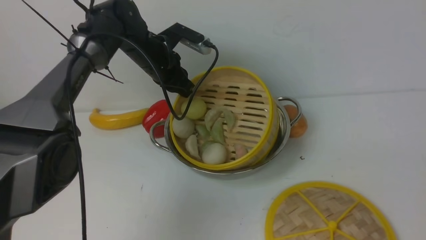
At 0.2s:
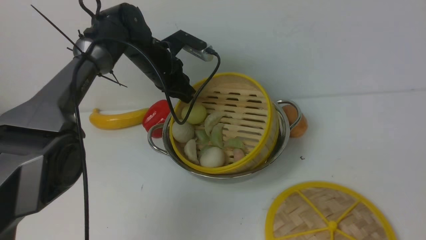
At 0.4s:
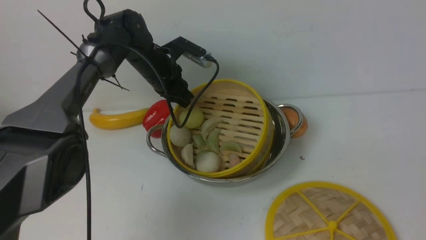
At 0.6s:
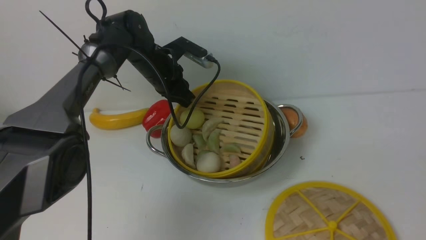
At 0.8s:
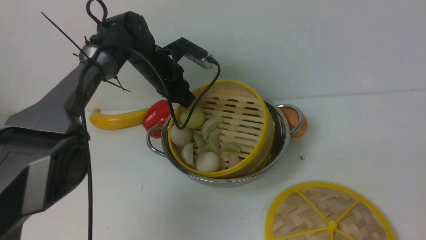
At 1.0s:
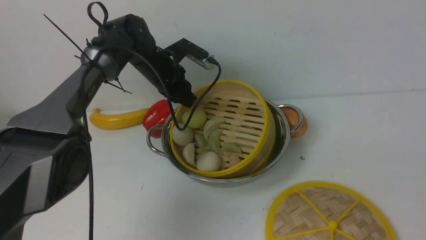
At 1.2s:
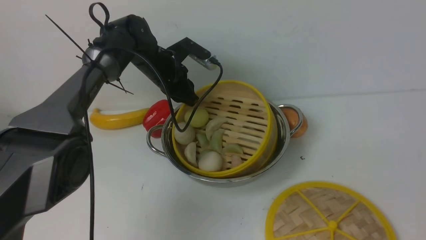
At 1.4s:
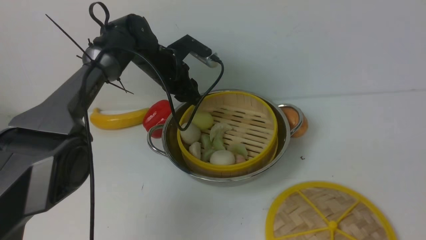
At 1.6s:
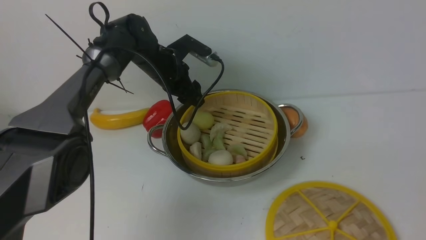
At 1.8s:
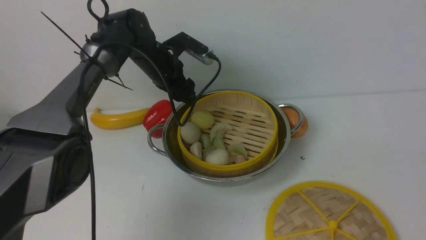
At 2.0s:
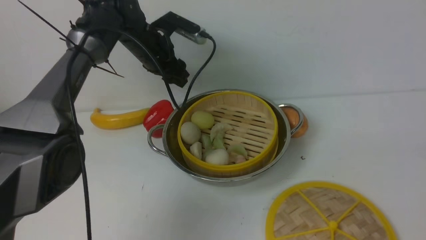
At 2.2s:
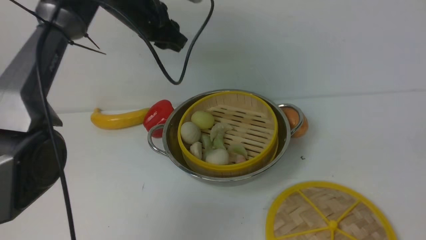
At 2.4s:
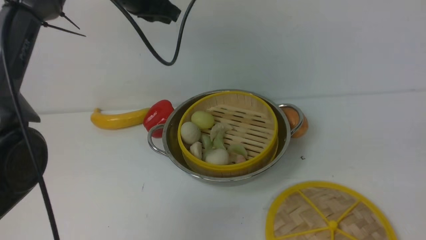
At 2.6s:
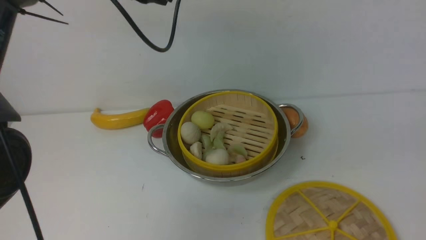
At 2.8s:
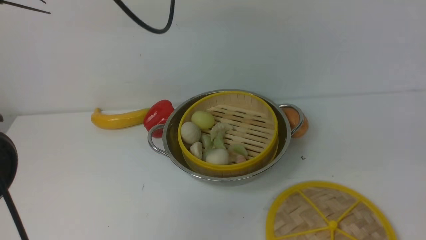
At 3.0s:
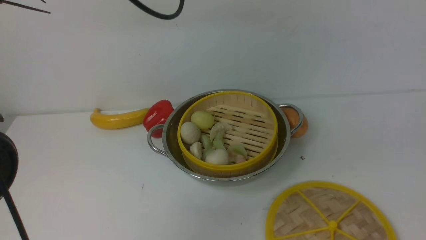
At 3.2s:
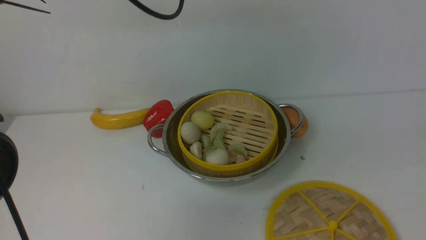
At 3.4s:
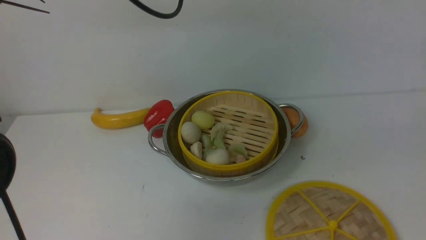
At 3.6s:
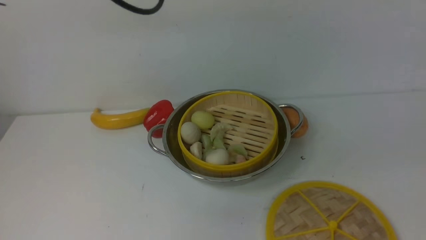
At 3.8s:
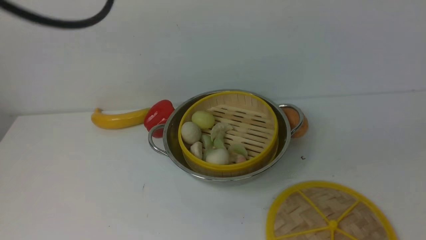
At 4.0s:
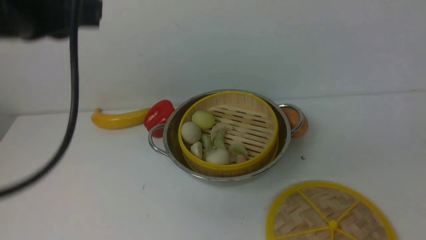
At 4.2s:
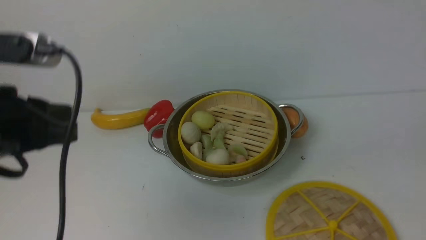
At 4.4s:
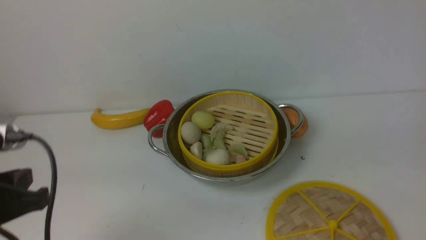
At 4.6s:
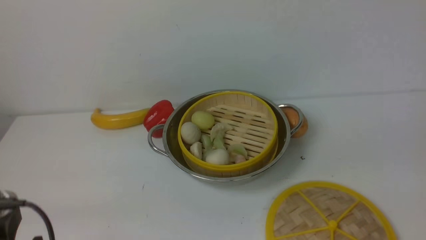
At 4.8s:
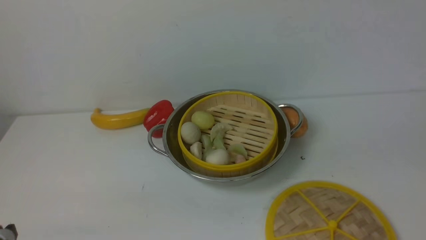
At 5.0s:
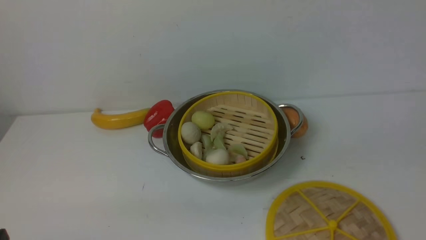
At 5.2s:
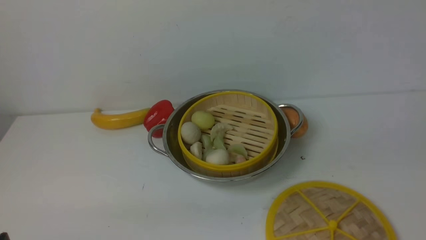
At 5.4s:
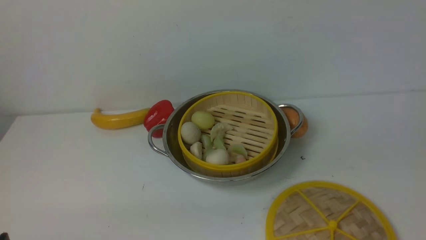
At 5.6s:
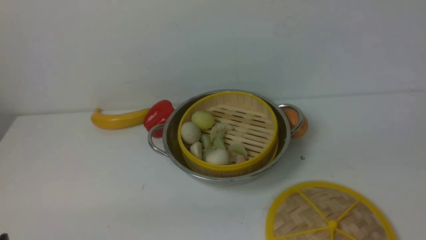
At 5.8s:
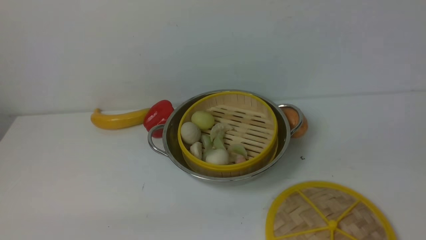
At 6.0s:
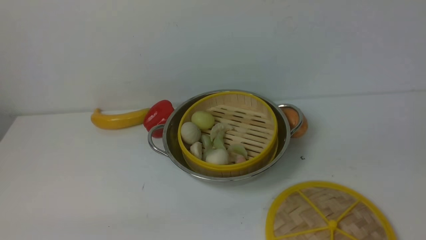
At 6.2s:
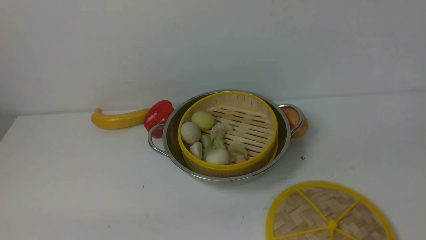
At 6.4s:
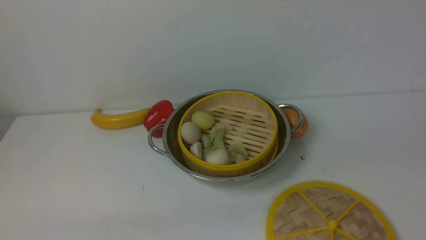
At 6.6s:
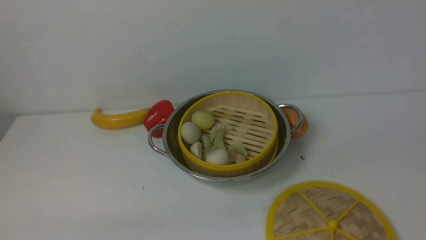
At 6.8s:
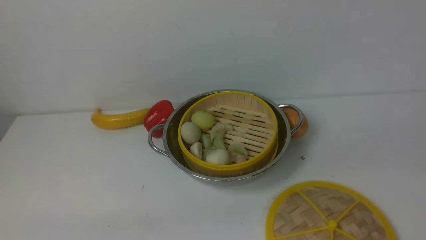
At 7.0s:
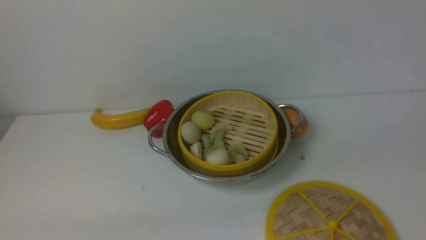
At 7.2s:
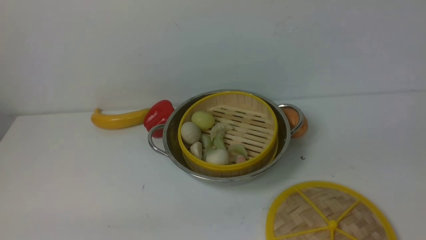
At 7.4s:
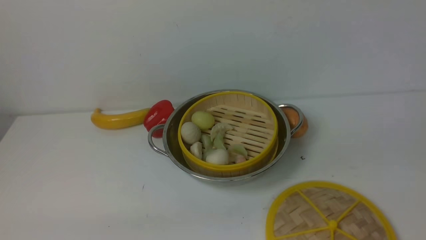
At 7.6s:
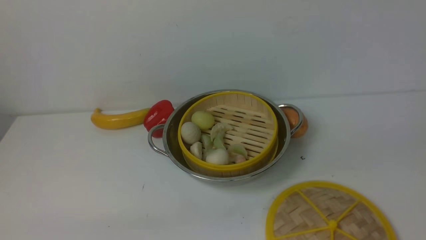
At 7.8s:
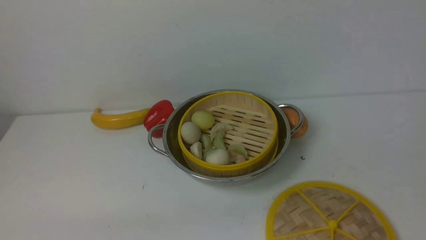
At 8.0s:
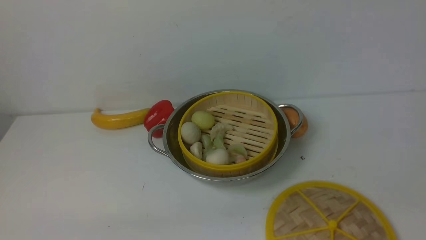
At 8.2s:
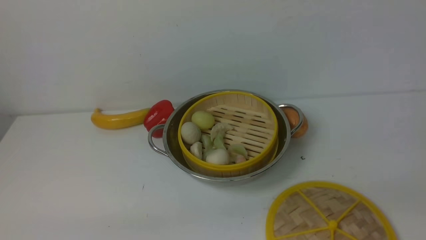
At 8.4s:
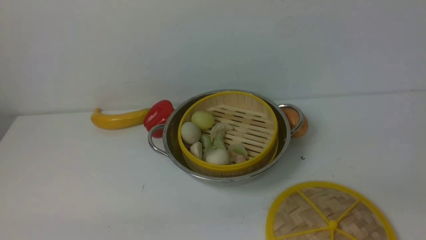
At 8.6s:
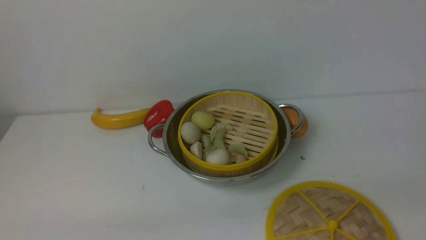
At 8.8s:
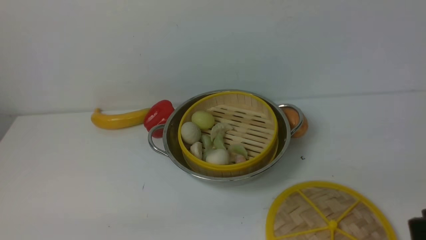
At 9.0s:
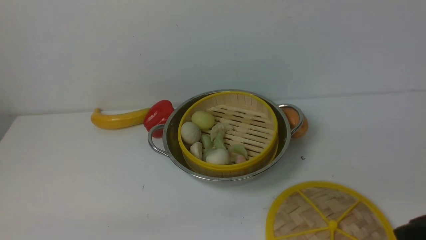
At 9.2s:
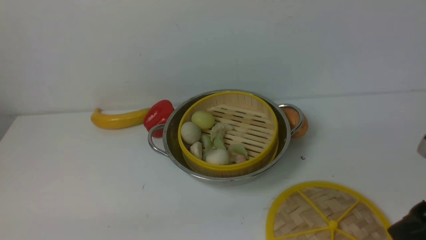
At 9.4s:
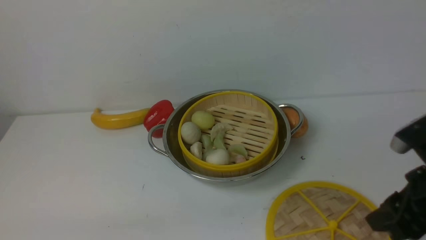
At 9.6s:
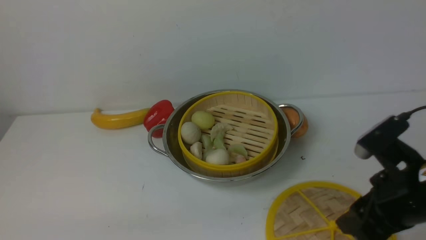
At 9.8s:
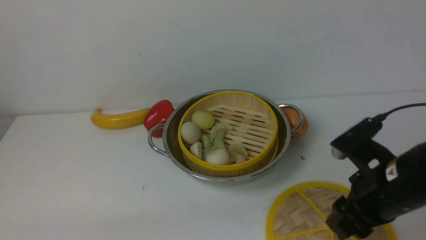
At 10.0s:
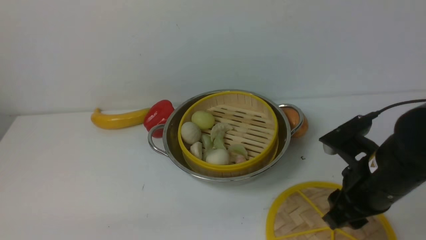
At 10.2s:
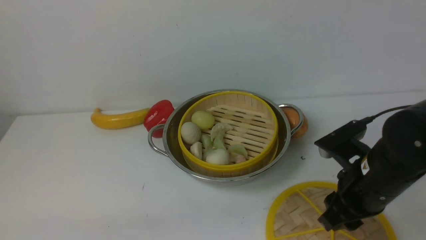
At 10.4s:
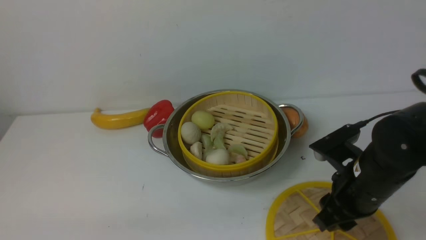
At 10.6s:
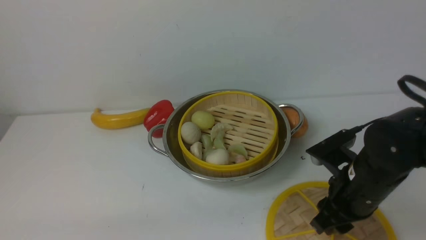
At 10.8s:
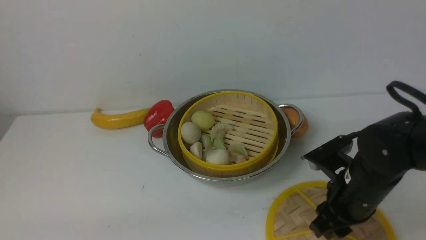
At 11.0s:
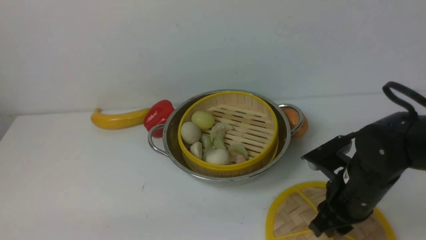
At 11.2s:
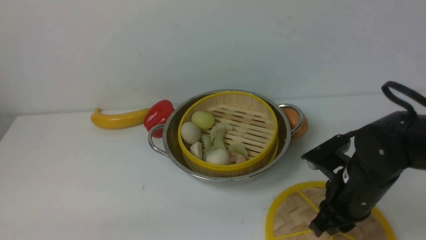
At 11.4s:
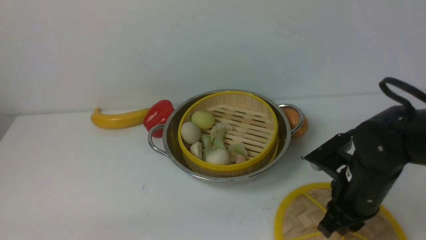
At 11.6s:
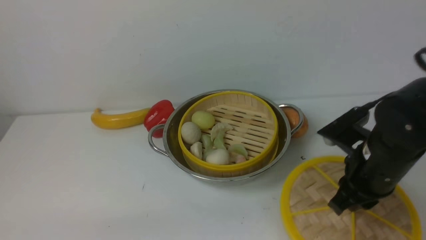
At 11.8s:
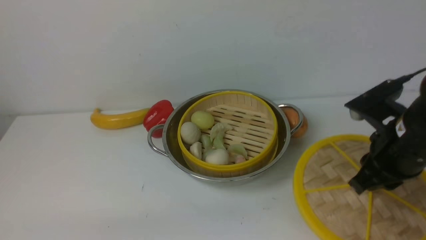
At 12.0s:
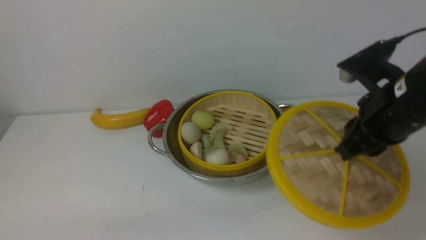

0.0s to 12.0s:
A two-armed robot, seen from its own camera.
Task of the whole recording: place the steamer in the pot on the white table, and put the lid on the steamer.
Step, 2.0s to 11.4s: use the right arm to lift the lid of the steamer.
0.0s to 1.6s: The left gripper opens its fingers.
1.6s to 3.0s: The left gripper moves upward, approximately 25 cm, and closes up.
3.0s to 4.4s: The left gripper moves backward, downward and to the left, some 30 cm.
4.4s to 6.0s: The left gripper moves downward and backward, about 20 cm.
9.0s to 10.4s: The right gripper goes about 20 cm forward, downward and to the left.
10.4s to 12.0s: The right gripper shifts approximately 10 cm upward, and closes up.

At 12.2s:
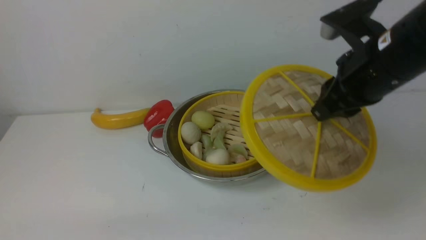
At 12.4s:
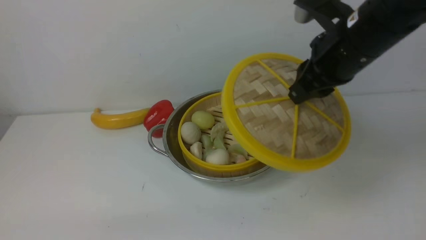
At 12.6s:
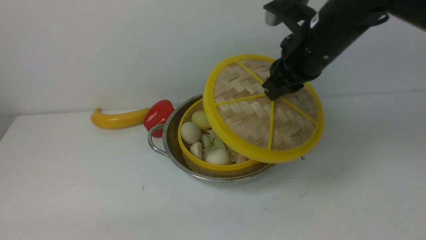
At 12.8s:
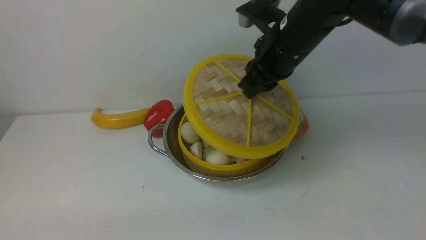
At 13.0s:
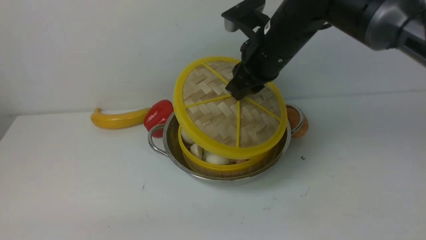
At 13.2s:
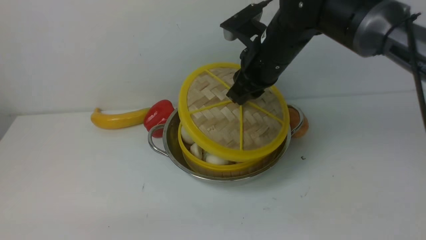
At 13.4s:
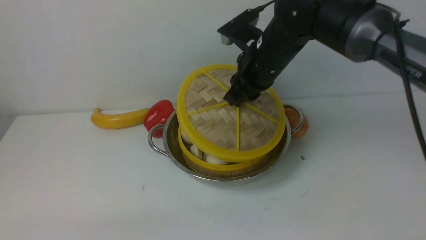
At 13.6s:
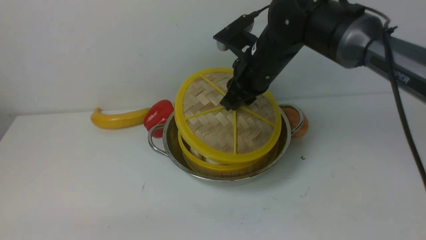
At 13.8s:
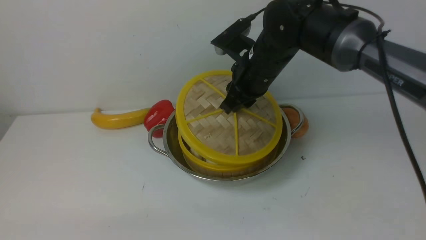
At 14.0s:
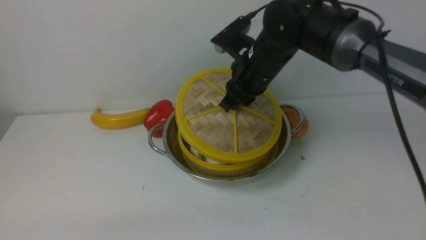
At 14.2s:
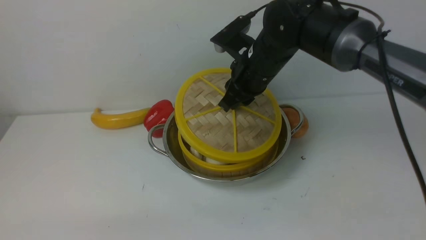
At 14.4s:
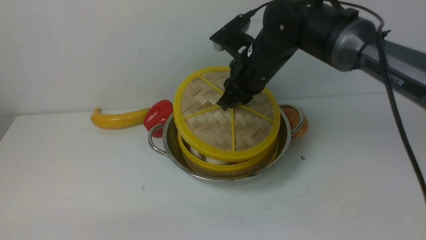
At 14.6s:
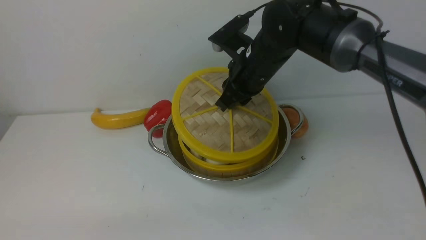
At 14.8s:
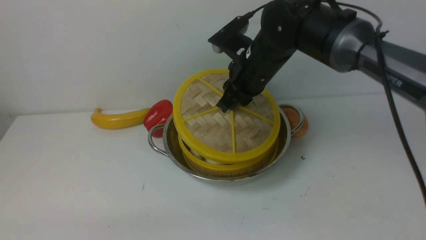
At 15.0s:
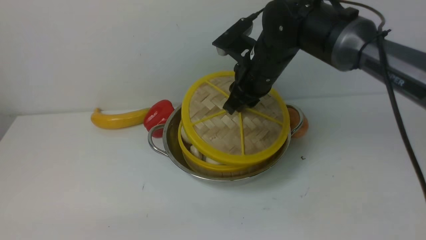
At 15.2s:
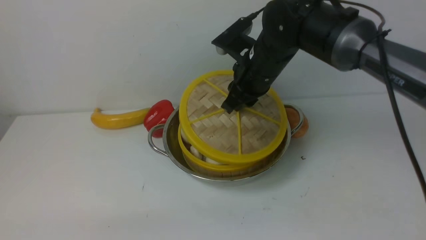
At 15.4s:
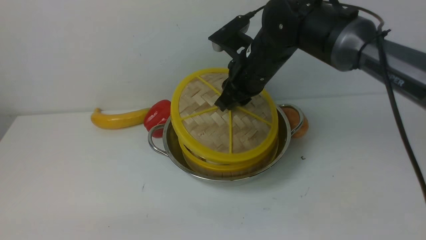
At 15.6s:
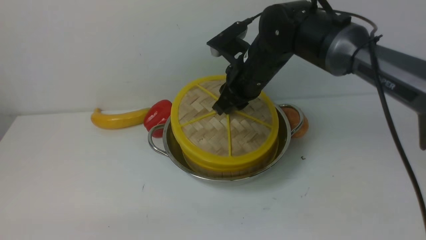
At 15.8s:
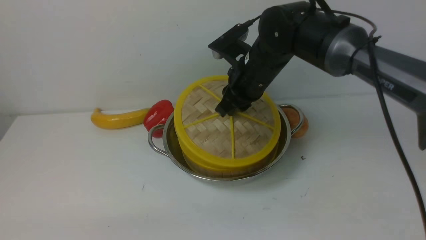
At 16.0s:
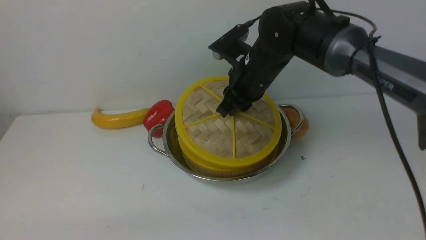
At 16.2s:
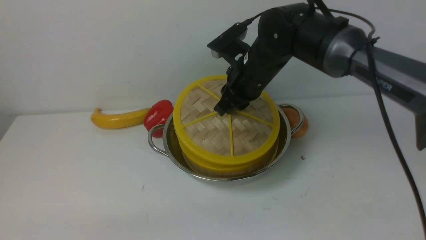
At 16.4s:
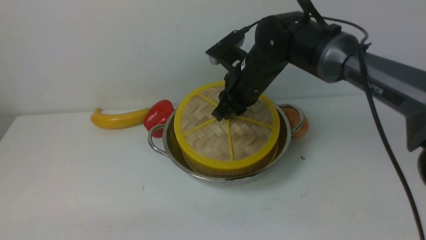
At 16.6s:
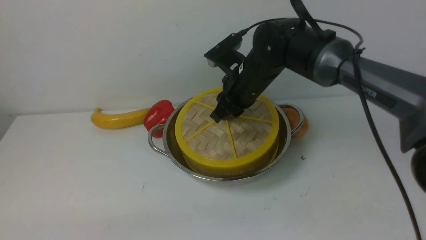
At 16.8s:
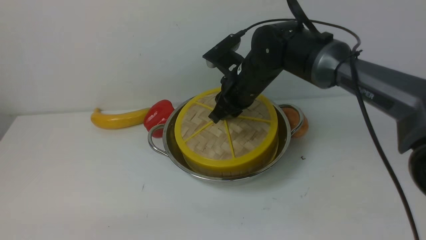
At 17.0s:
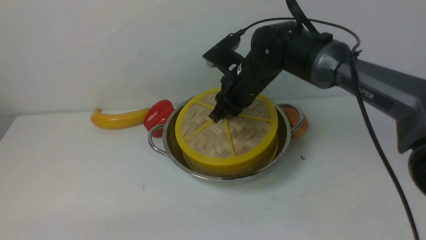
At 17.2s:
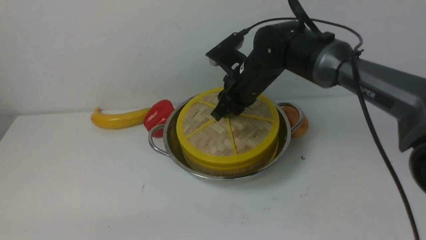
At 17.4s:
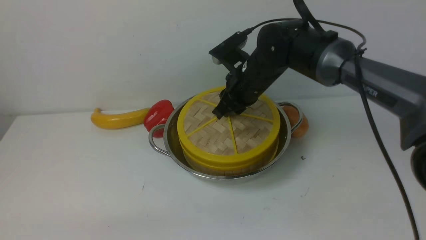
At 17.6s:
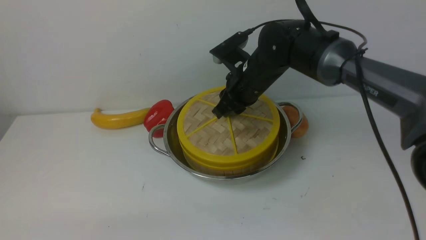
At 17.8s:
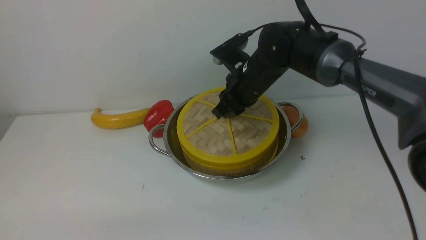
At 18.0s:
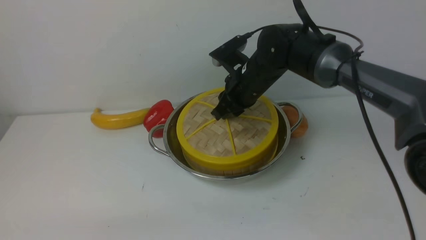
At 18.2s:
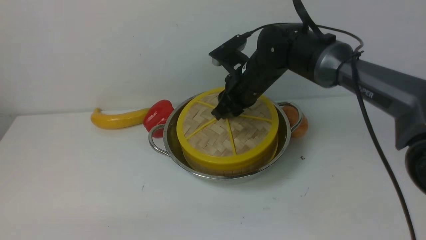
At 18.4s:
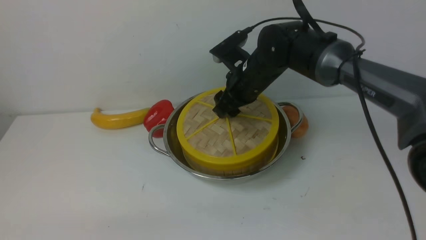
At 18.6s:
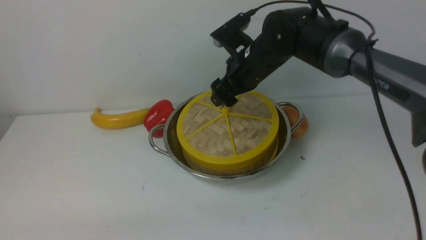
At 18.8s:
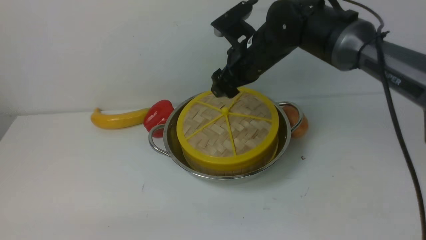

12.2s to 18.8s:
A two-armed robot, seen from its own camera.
Task of the whole recording: place the steamer in the pot on the white table, and put the lid on the steamer.
Step, 12.2s to 18.6s: use the right arm to place the steamer lid on the steamer.
12.2s to 13.8s: The right gripper moves forward, to the left and downward, some 20 cm.
13.8s to 15.4s: Neither gripper changes place.
15.4s to 17.2s: The grippers make only small movements.
17.2s to 18.8s: The right gripper opens.
